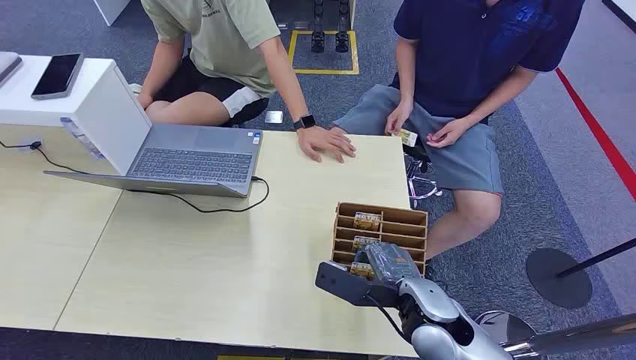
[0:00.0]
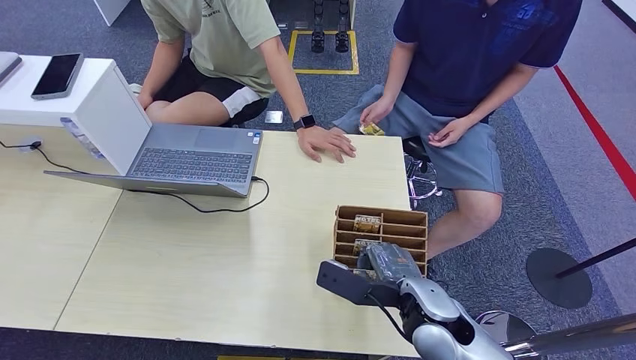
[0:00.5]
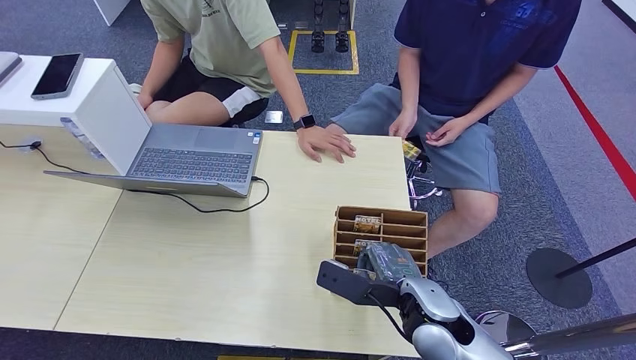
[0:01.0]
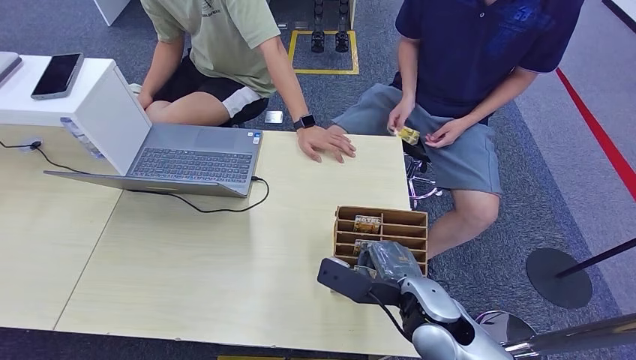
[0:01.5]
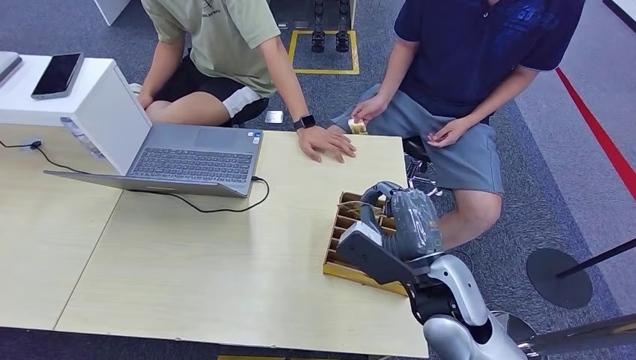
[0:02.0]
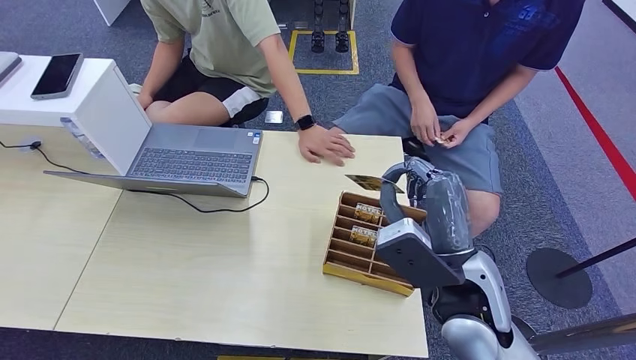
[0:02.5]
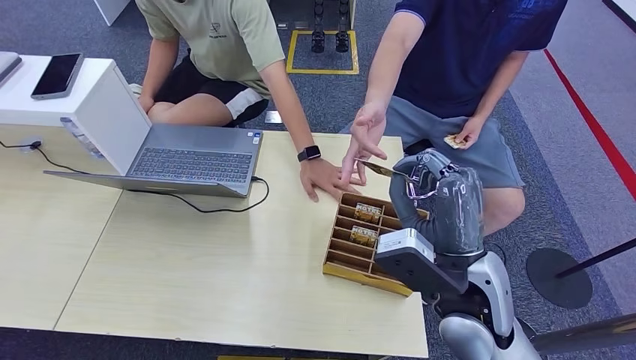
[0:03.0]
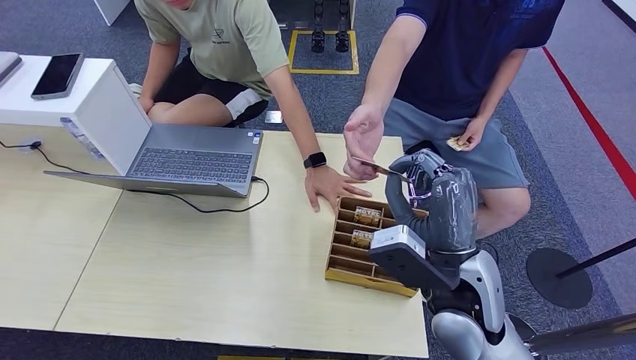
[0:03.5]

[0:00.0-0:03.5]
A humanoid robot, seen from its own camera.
Step, 0:00.0 to 0:02.5: Pick up the key card from the card box.
Step, 0:03.0 to 0:03.5: Hand the key card to the target.
